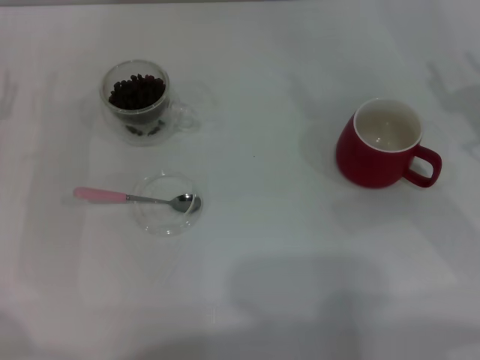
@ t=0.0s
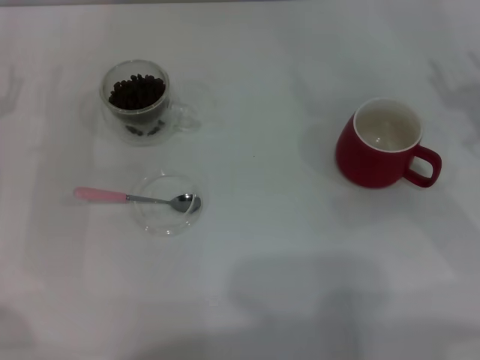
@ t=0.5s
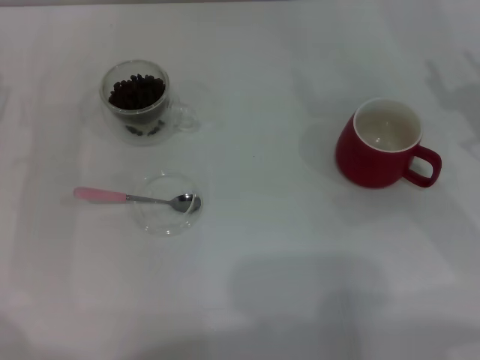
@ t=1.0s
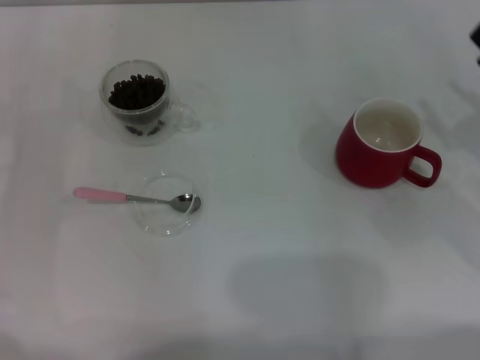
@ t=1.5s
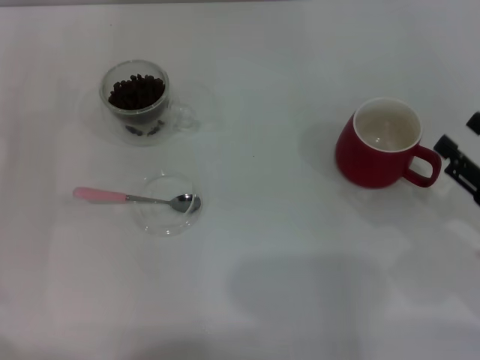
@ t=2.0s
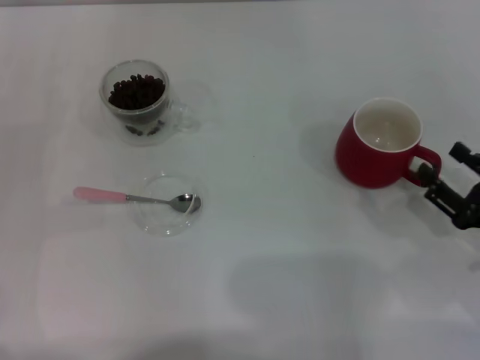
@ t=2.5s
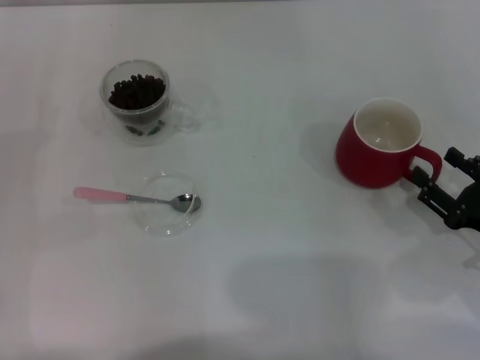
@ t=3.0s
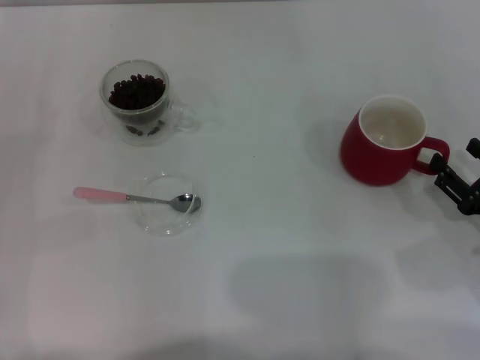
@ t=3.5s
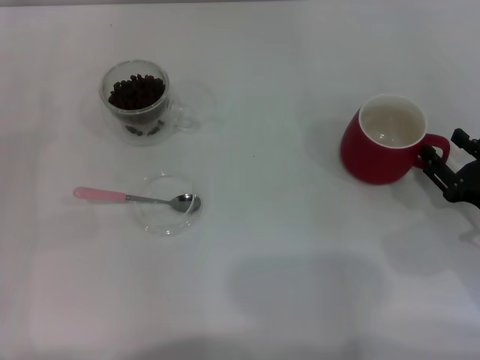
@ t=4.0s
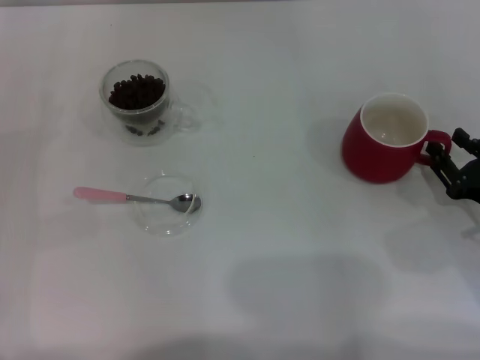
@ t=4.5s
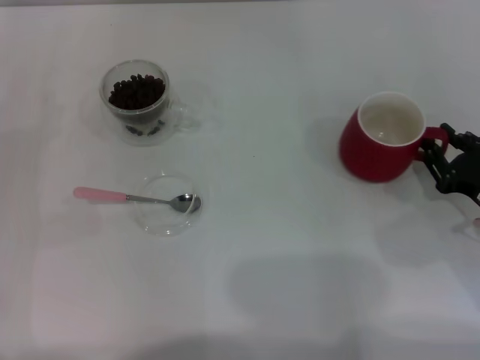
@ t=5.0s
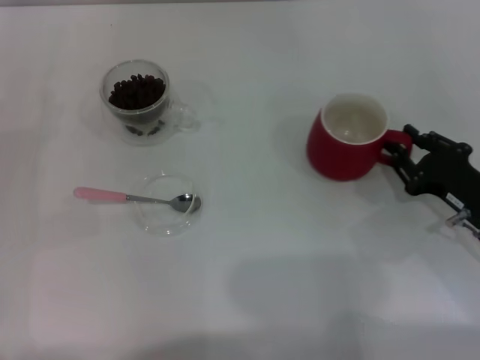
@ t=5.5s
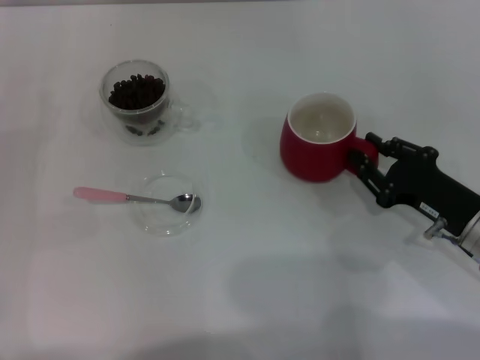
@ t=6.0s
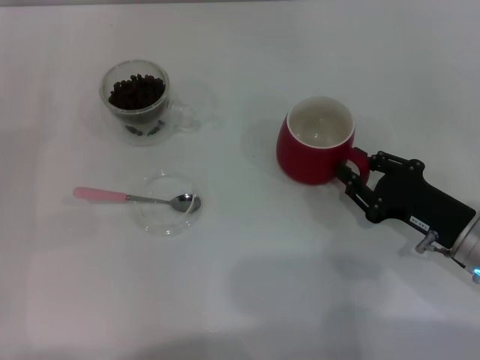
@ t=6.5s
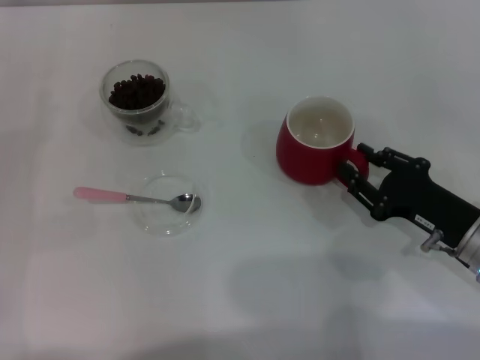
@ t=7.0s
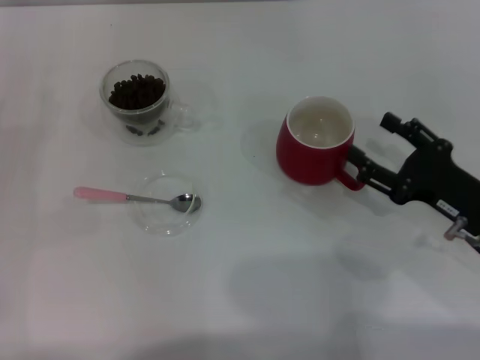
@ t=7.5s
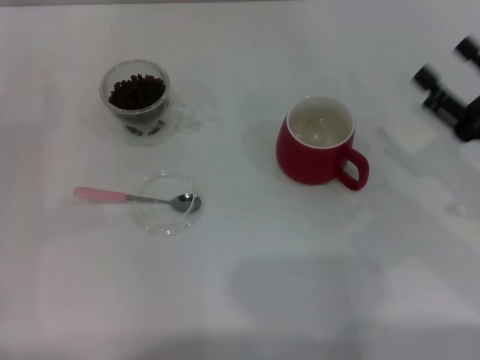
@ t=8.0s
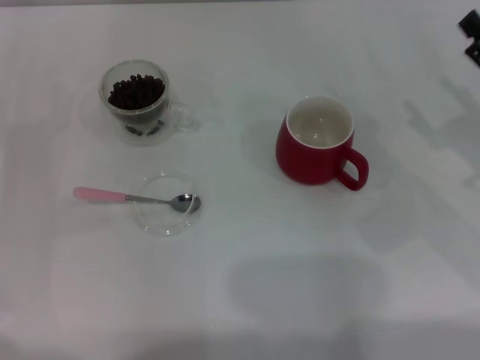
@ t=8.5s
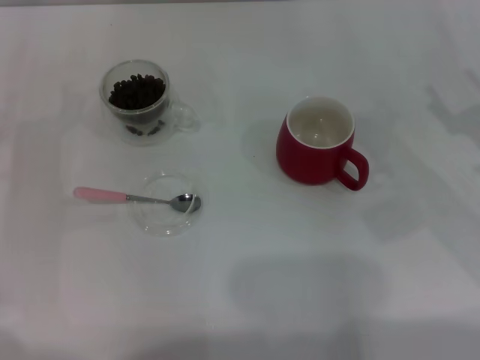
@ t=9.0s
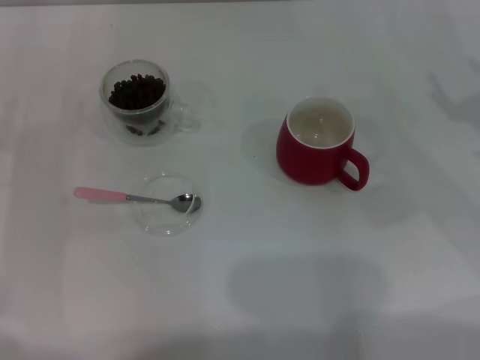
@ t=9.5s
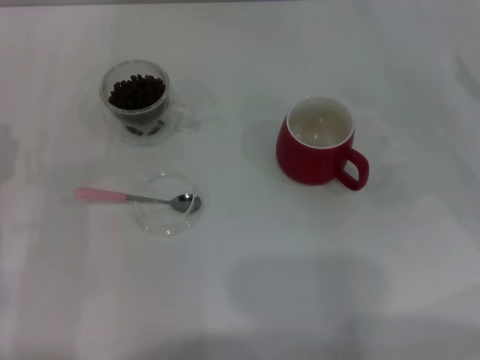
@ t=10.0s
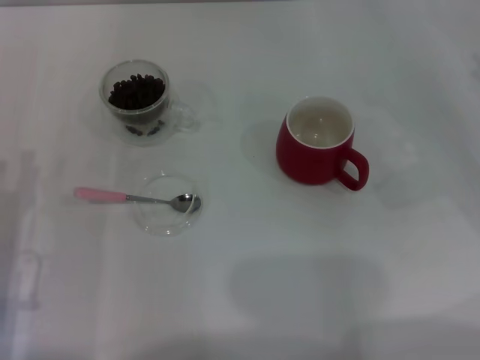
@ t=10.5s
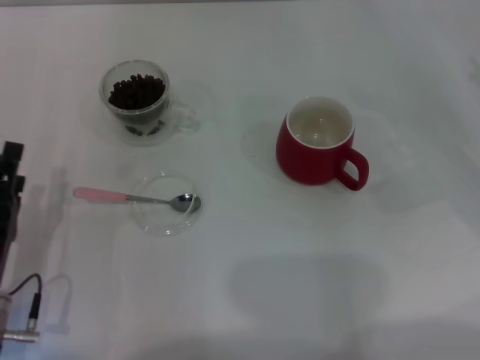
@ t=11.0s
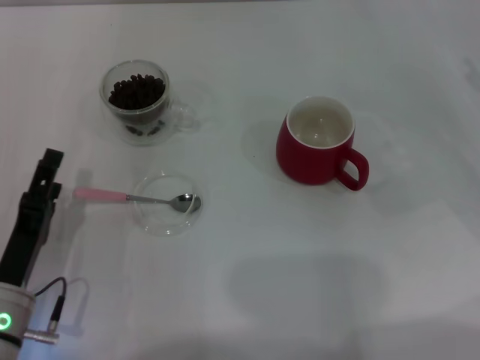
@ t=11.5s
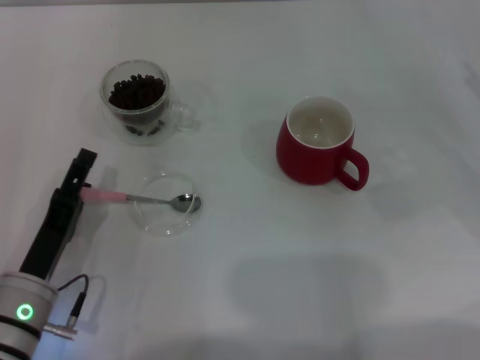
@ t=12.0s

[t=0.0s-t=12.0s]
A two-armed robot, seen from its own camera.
Task of the whole recording: Use a pink spoon to take out the coffee beans from the glass and pour them into the red cup.
Step, t=0.0s to t=7.5s: Move the cup to the center of view with the left gripper.
t=0.0s to t=2.0s: The right gripper travels backward and downward by roughly 10 cm.
t=2.0s to t=4.0s: The grippers move only a little.
t=4.0s to t=6.0s: The right gripper shifts by approximately 5 cm, and closes its fingers.
t=6.0s to t=8.0s: The right gripper moves upward, about 5 cm, and opens its fingers.
t=8.0s to t=10.0s: The right gripper goes approximately 10 cm to the right and forward.
t=10.0s to t=12.0s: The left gripper shifts roughly 10 cm to the right.

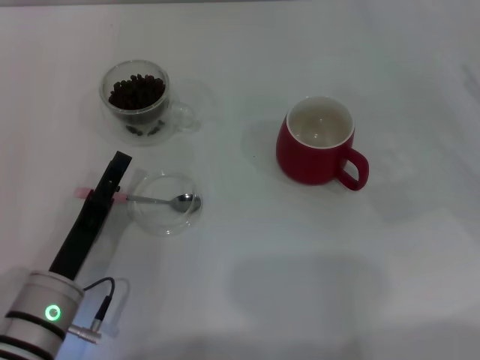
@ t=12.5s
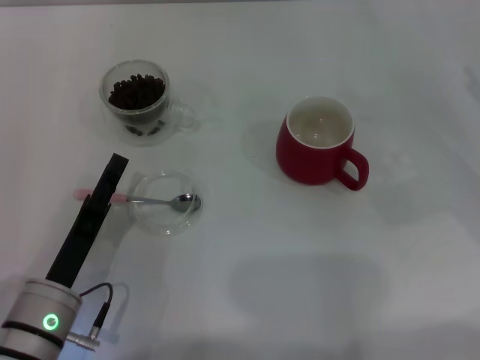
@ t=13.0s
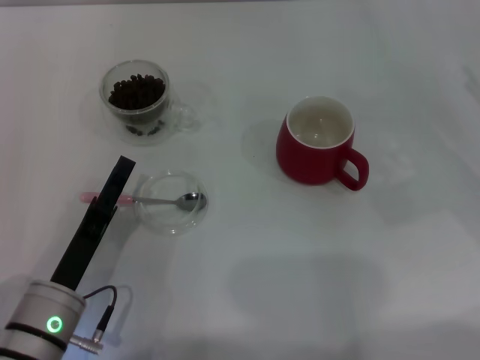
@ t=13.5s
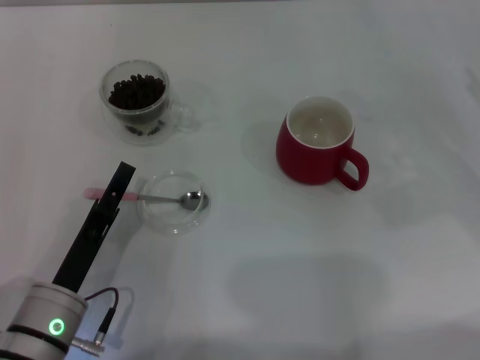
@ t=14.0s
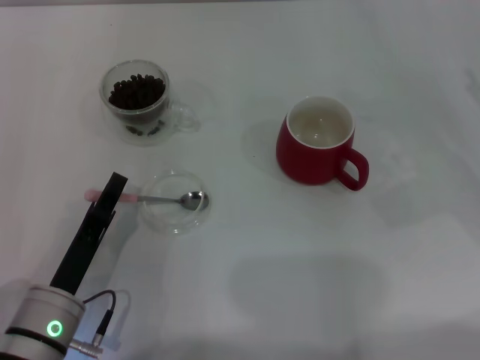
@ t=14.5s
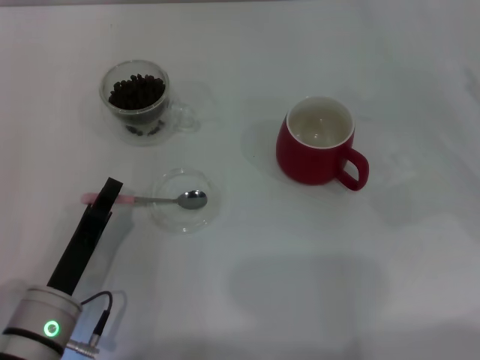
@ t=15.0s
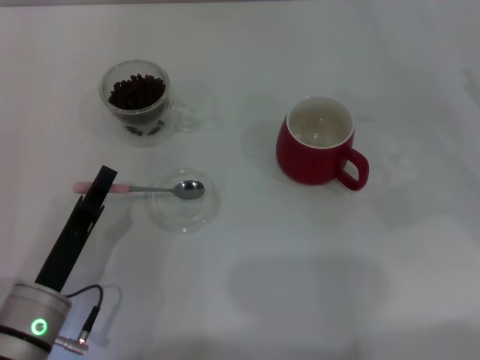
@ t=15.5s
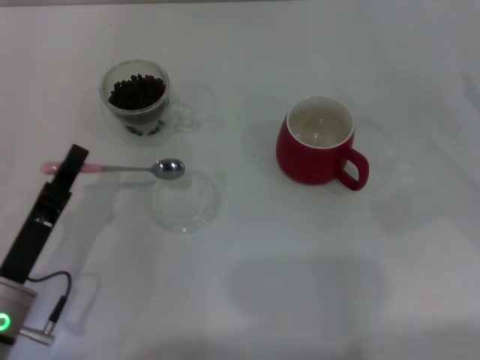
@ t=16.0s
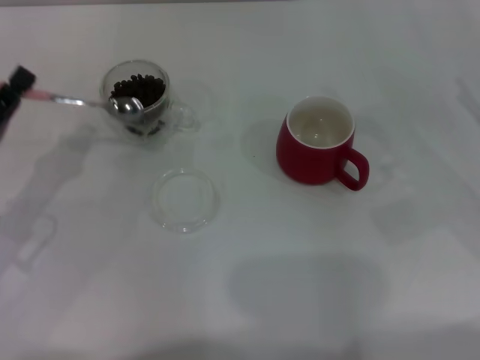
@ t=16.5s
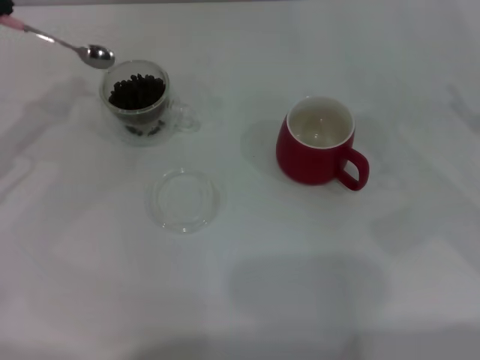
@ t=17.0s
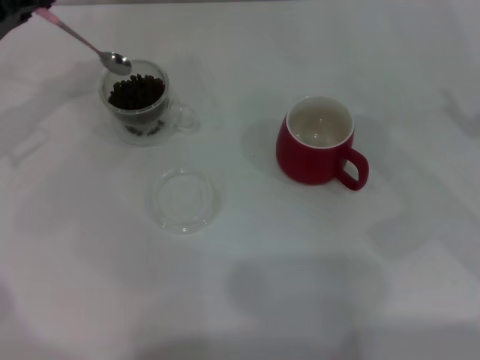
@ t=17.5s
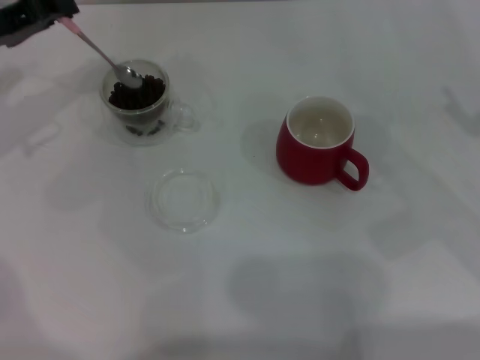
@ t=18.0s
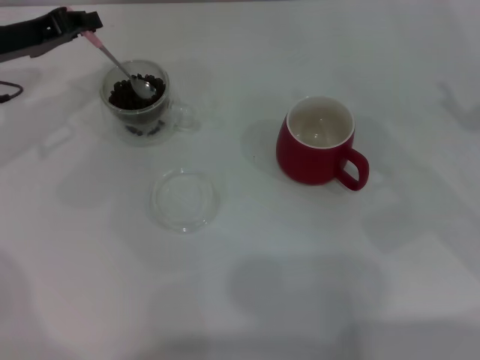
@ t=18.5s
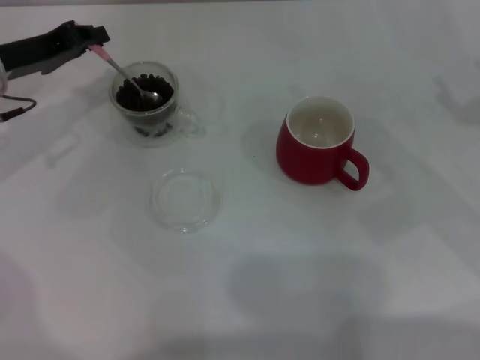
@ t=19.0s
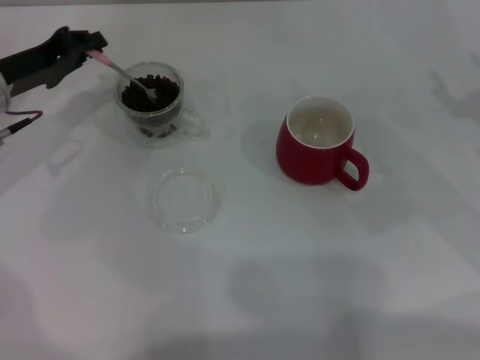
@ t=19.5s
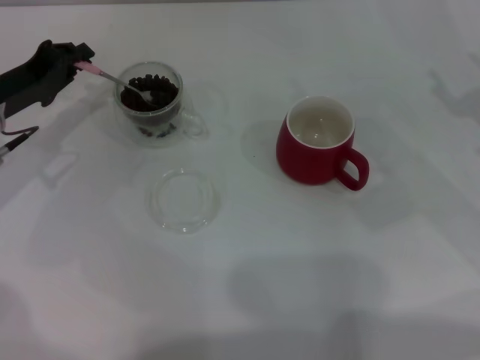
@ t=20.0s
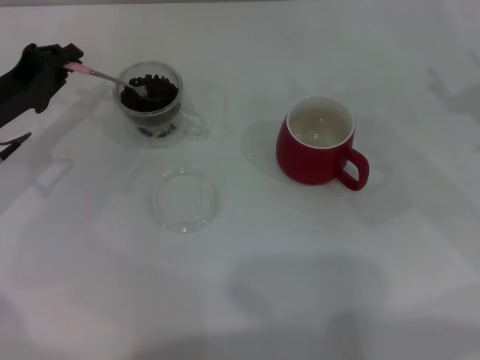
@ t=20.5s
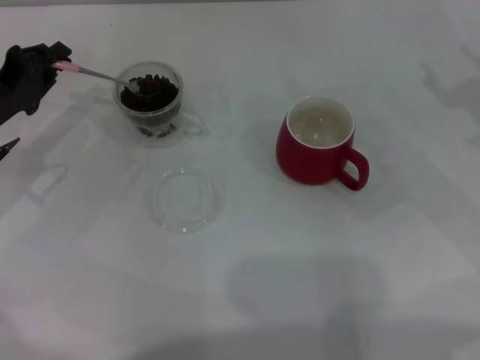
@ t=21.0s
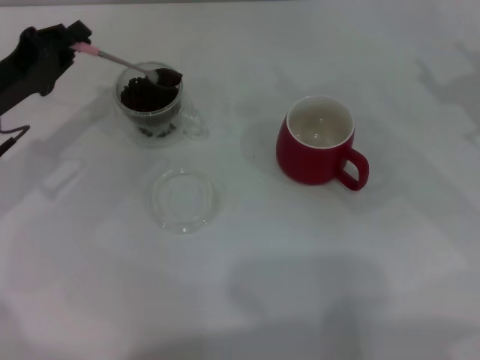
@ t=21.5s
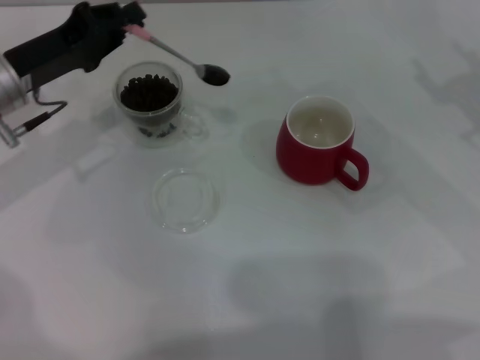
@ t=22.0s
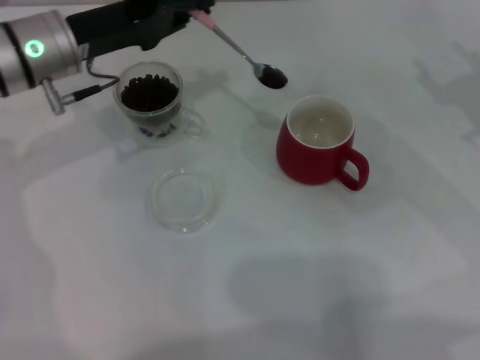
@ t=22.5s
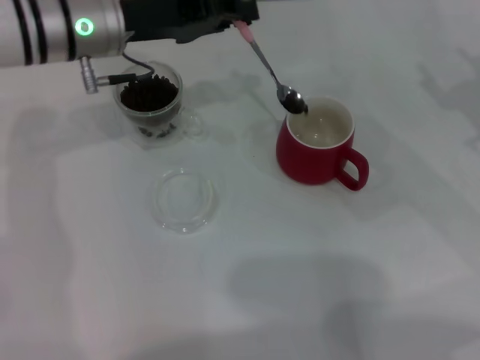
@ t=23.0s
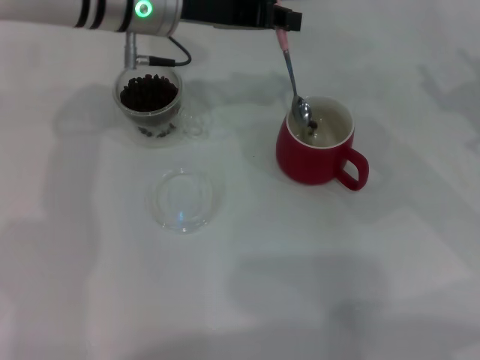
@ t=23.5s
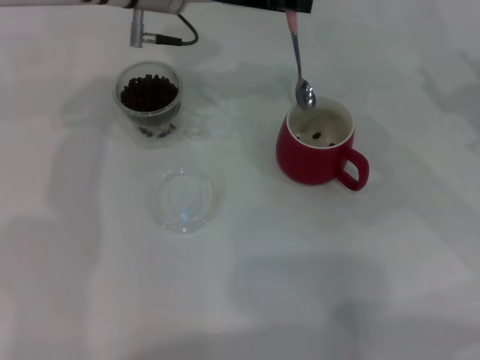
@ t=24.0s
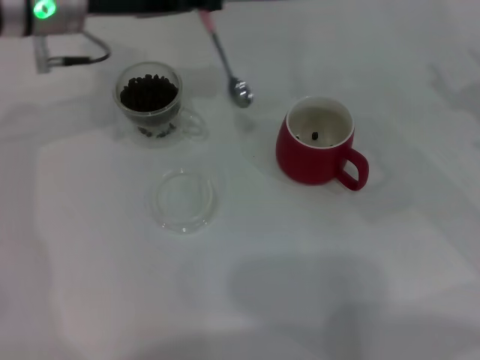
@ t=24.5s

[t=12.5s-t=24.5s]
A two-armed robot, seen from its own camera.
Task of the whole recording: Use a pink spoon to take out the coffee beans from the glass and pour them into the red cup.
Step, t=12.5s to t=16.0s: Pick up the spoon with the right gripper.
t=12.5s to t=14.5s: The left gripper closes.
t=14.5s to t=16.5s: The left gripper shifts some 15 cm to the left, forward and upward, and closes its fingers.
t=16.5s to t=18.5s: The left gripper is displaced forward and upward by about 15 cm.
t=18.5s to t=20.5s: The left gripper is displaced downward and backward by roughly 10 cm.
t=20.5s to t=22.5s: The left gripper shifts some 10 cm to the right and upward.
t=22.5s to t=24.5s: The left gripper moves approximately 10 cm to the right and comes back.

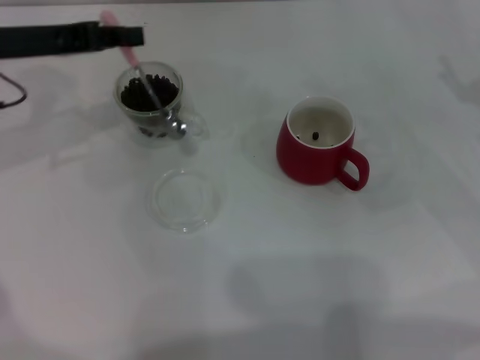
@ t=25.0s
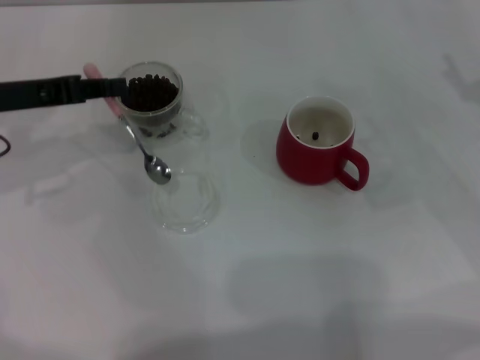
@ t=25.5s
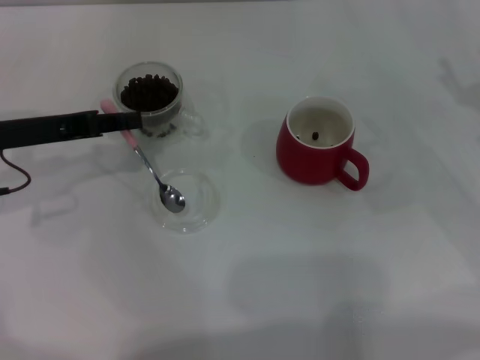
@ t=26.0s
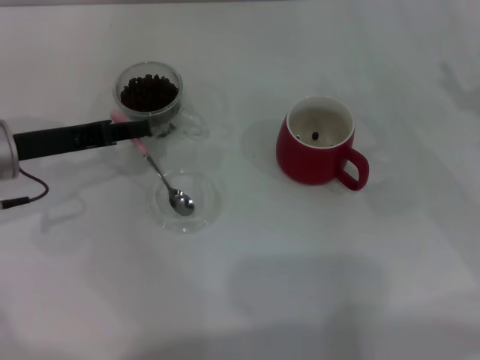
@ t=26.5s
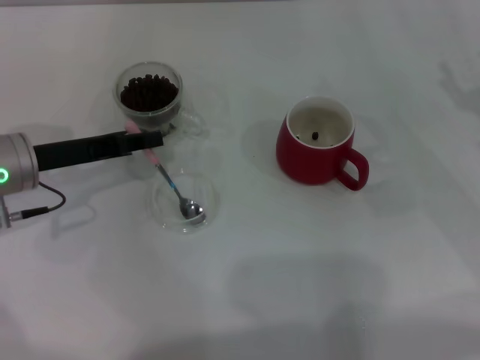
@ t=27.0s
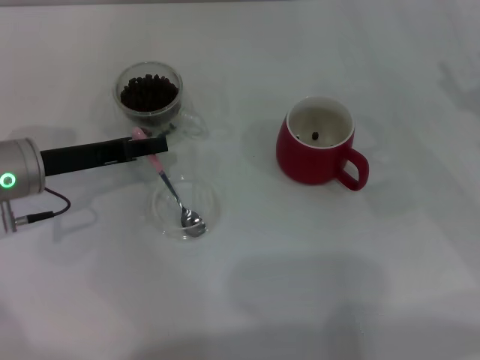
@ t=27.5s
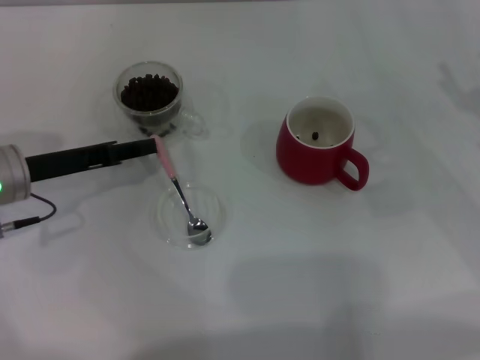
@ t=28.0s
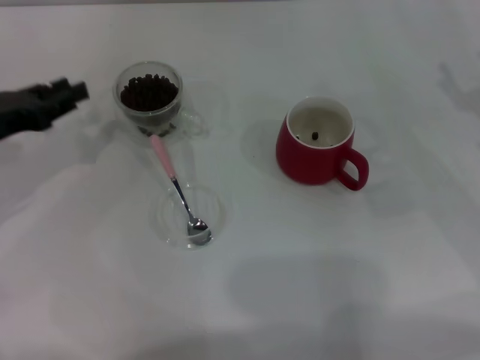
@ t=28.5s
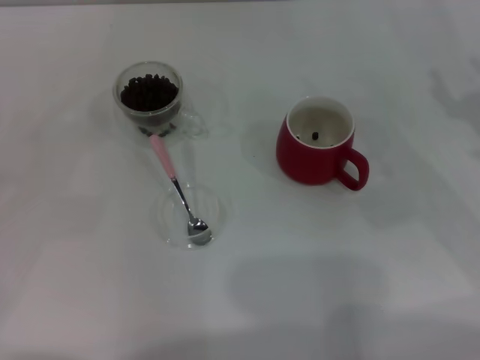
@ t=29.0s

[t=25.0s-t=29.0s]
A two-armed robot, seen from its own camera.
Task of the whole recording: Use a pink spoon to take out the coffee beans from the glass and pour them into the red cup.
t=25.0s to t=27.0s: The left gripper goes roughly 10 cm downward and backward.
t=27.0s to t=29.0s: The left gripper moves to the left and backward, approximately 15 cm, and opens its fingers.
